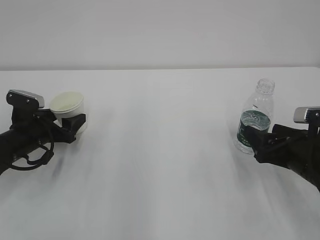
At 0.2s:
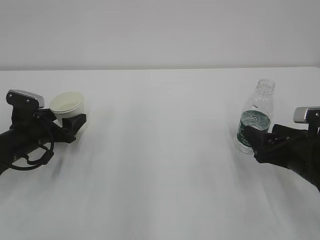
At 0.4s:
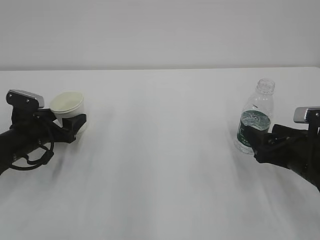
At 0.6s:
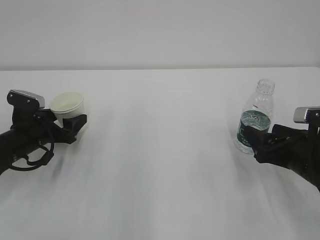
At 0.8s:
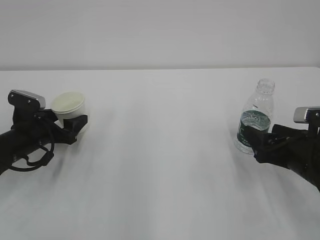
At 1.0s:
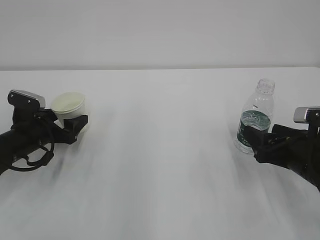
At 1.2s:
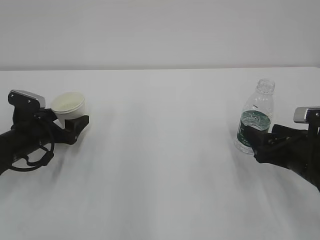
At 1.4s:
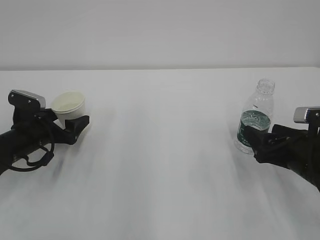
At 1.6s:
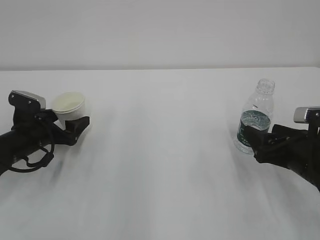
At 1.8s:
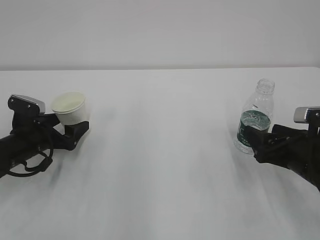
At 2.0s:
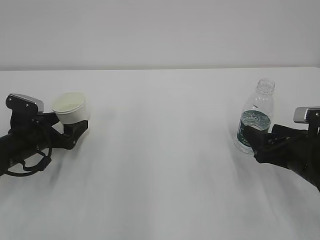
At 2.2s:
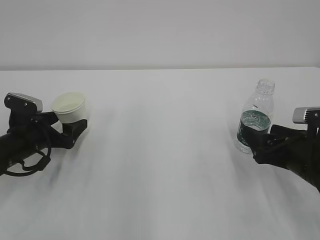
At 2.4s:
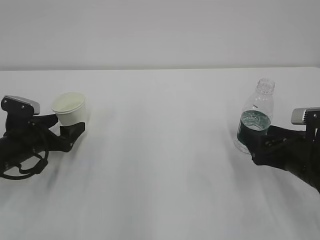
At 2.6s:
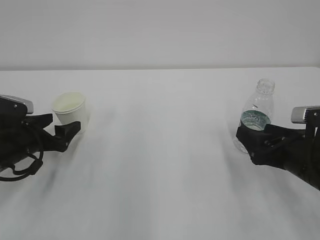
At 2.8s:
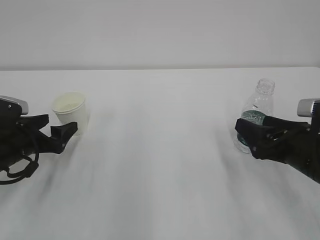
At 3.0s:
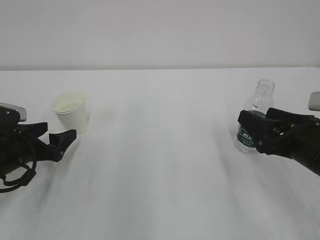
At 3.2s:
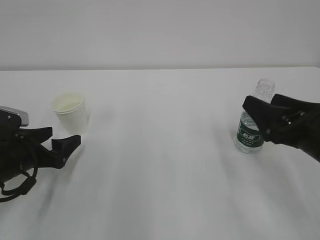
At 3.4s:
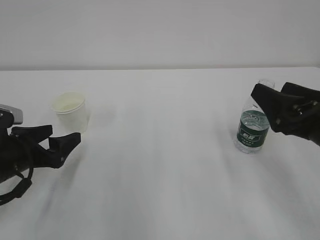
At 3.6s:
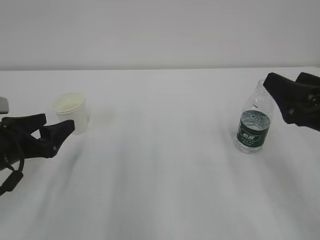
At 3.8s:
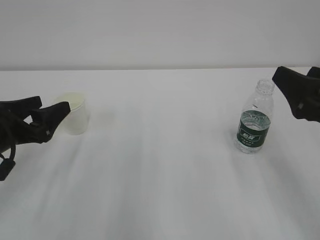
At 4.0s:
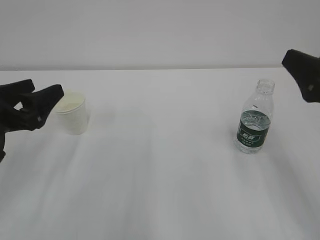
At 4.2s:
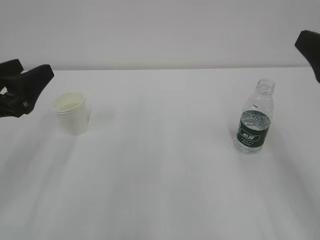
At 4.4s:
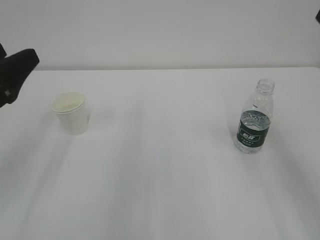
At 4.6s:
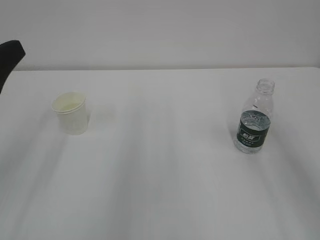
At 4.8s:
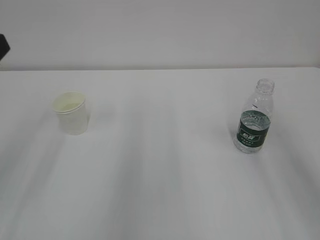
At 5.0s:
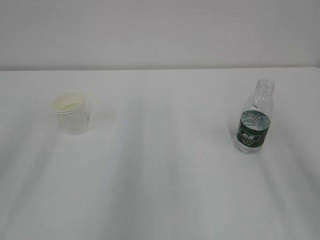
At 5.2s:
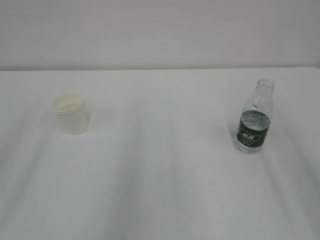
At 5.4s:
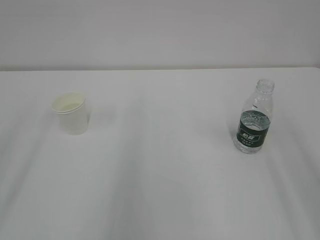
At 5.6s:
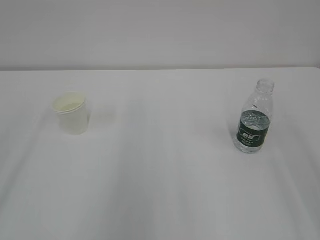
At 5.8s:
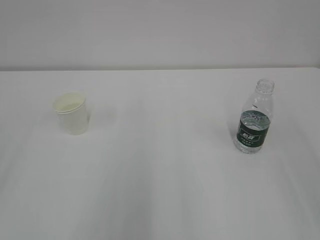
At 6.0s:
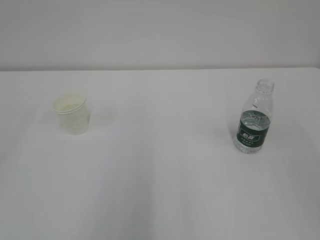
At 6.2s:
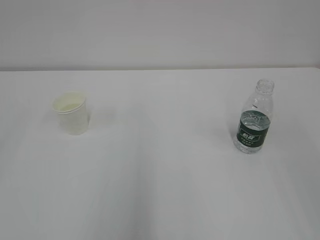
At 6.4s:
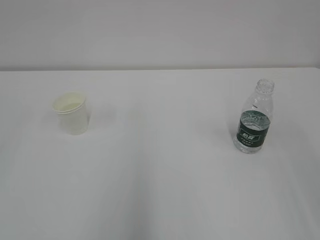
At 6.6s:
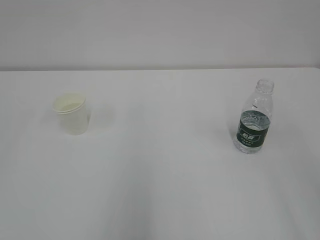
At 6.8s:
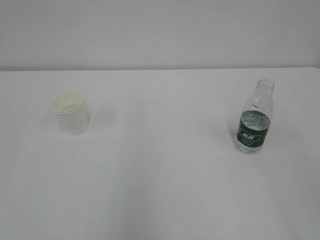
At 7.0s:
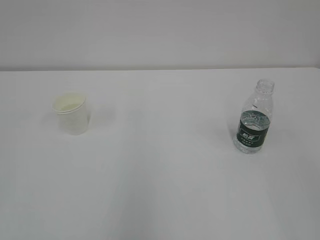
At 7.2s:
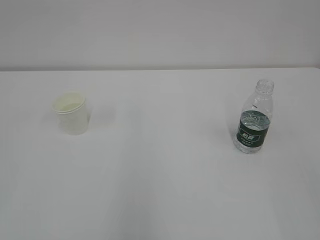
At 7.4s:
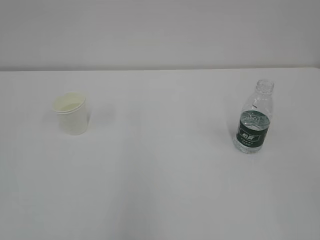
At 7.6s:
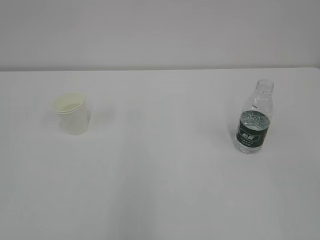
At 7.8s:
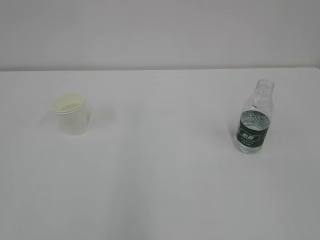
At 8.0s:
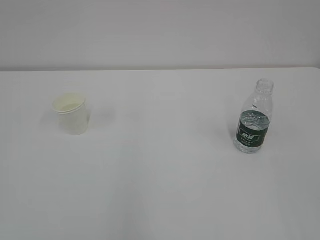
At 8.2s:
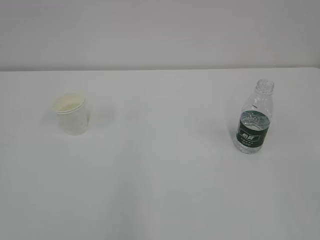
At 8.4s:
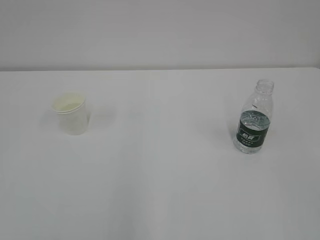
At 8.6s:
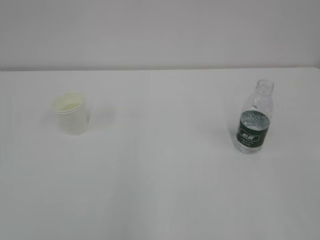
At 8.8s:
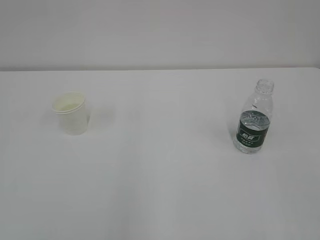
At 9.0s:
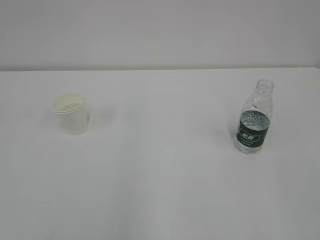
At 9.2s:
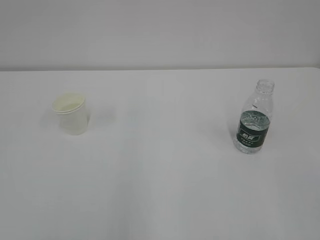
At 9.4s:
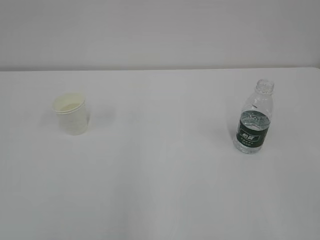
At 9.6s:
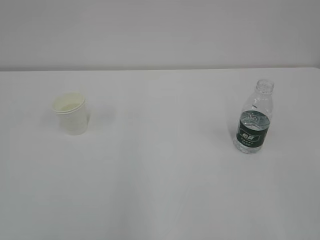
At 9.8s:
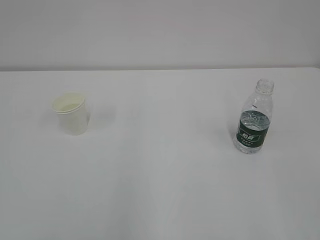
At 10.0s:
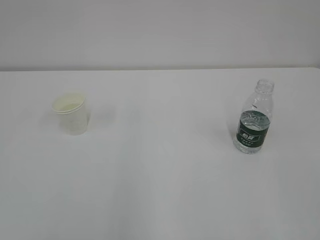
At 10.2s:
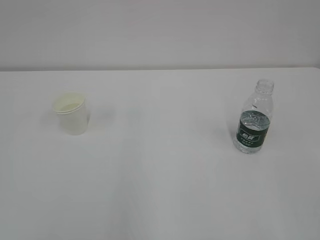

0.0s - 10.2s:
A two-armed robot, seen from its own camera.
0.0s - 1.4s: Both grippers stay about where they are.
1.4s - 3.0s: The left gripper heads backward, covering approximately 5 cm.
3.0s - 4.4s: The left gripper goes some 20 cm upward and backward; the right gripper moves upward, roughly 15 cm.
4.4s - 5.8s: The left gripper is displaced backward and upward by approximately 15 cm.
8.8s - 10.2s: Both grippers stay put.
